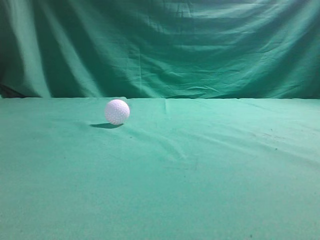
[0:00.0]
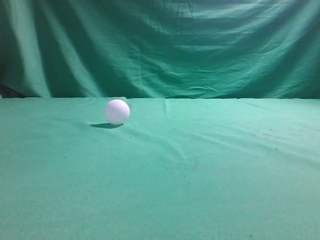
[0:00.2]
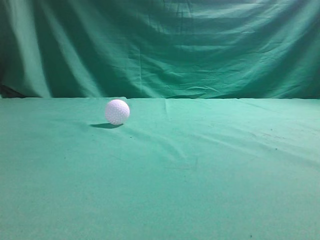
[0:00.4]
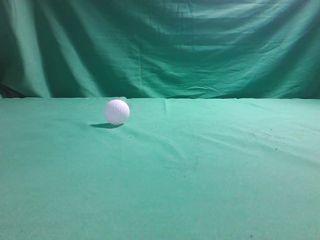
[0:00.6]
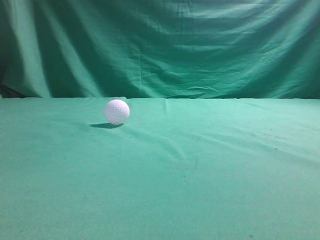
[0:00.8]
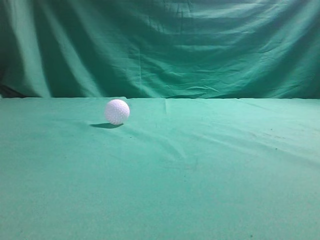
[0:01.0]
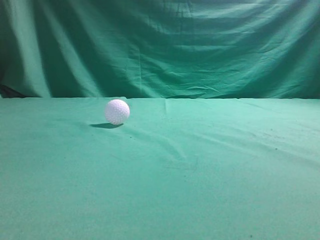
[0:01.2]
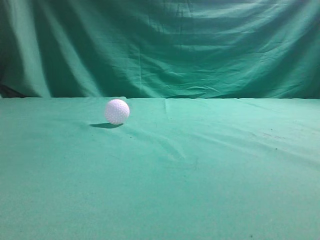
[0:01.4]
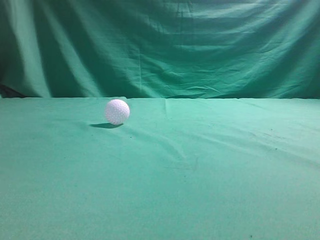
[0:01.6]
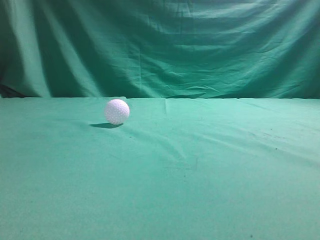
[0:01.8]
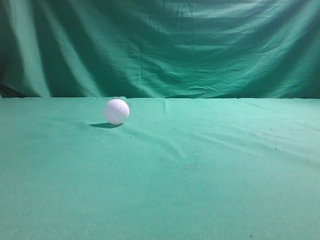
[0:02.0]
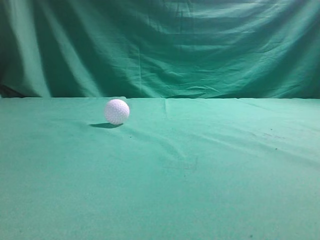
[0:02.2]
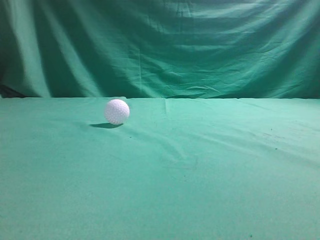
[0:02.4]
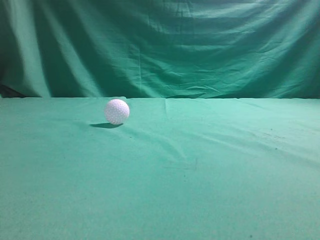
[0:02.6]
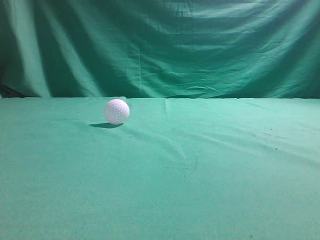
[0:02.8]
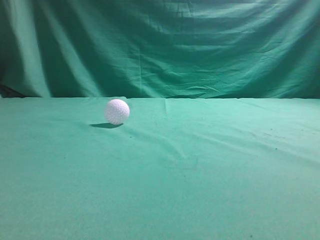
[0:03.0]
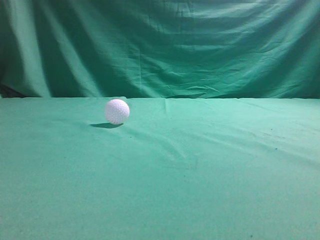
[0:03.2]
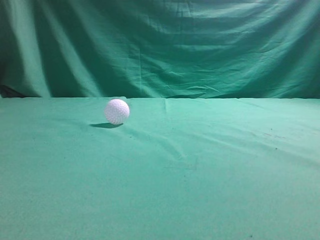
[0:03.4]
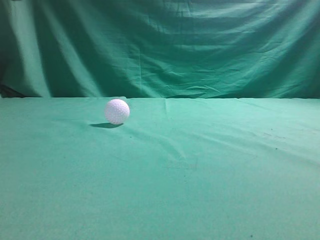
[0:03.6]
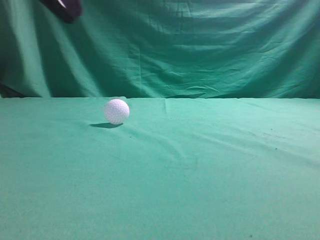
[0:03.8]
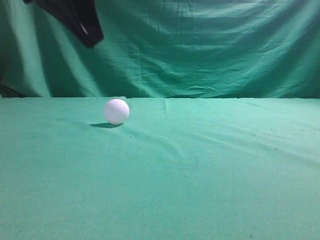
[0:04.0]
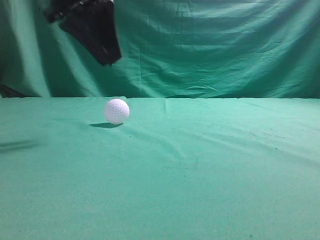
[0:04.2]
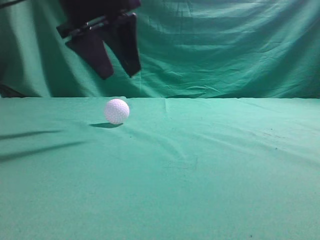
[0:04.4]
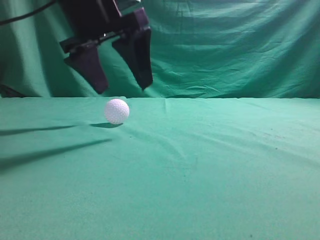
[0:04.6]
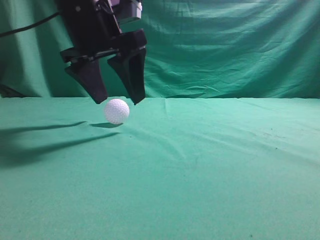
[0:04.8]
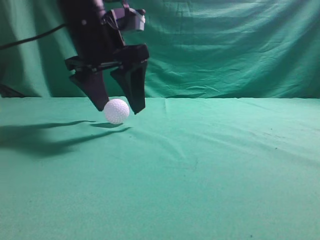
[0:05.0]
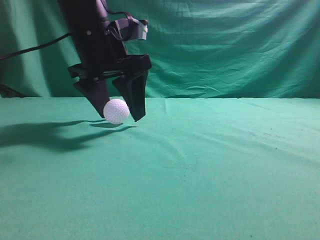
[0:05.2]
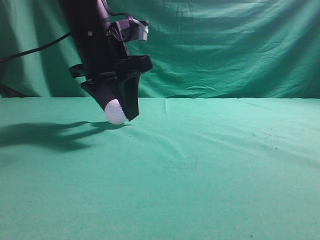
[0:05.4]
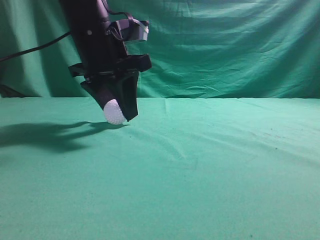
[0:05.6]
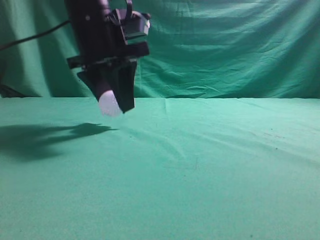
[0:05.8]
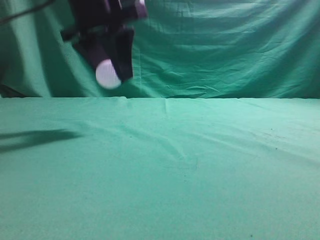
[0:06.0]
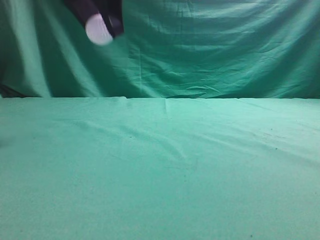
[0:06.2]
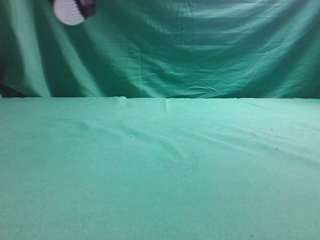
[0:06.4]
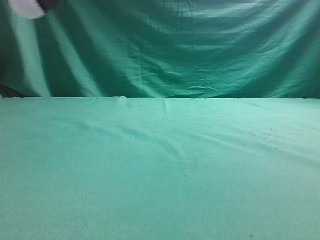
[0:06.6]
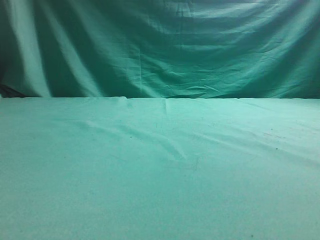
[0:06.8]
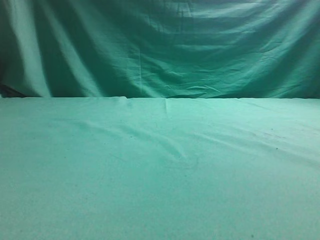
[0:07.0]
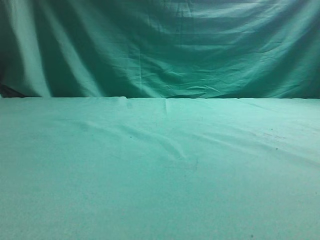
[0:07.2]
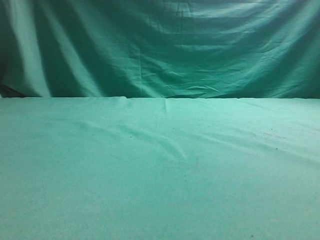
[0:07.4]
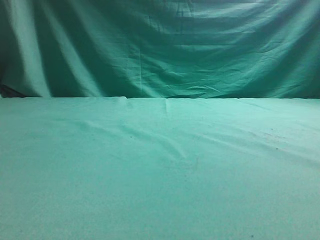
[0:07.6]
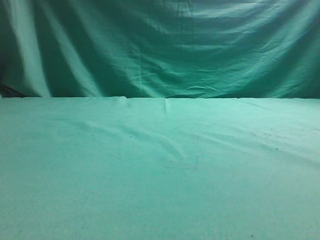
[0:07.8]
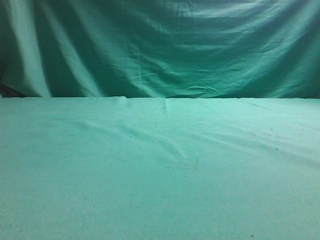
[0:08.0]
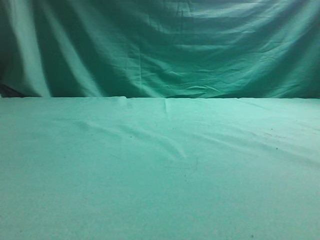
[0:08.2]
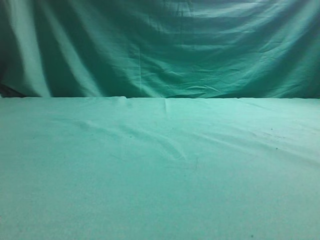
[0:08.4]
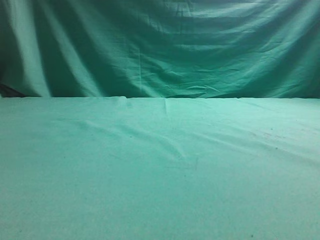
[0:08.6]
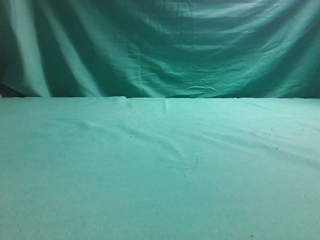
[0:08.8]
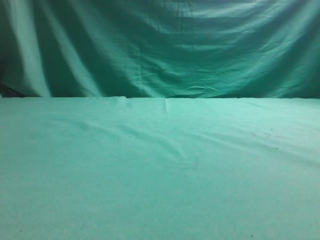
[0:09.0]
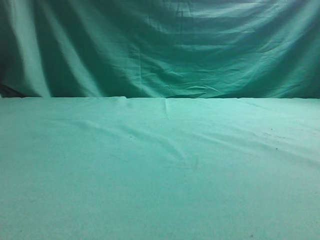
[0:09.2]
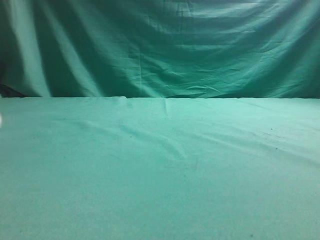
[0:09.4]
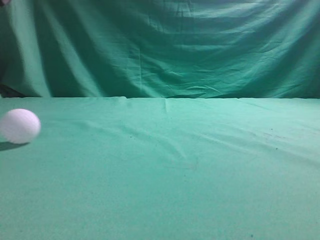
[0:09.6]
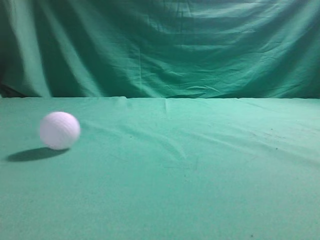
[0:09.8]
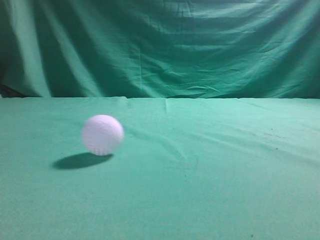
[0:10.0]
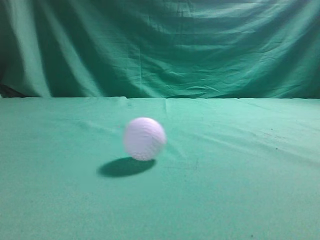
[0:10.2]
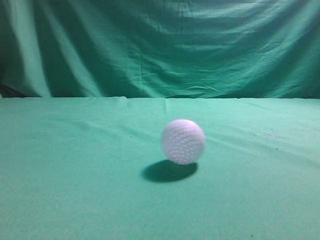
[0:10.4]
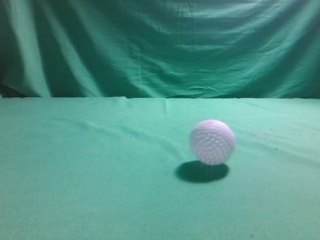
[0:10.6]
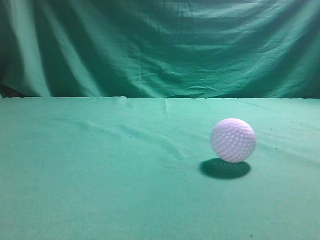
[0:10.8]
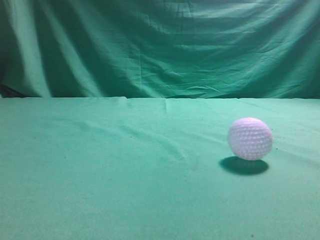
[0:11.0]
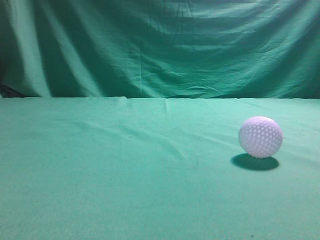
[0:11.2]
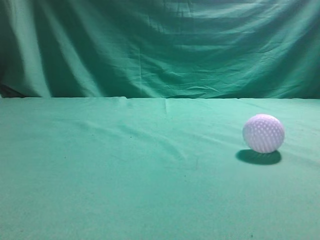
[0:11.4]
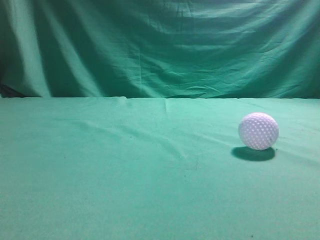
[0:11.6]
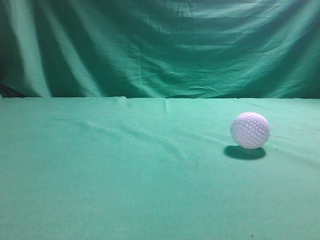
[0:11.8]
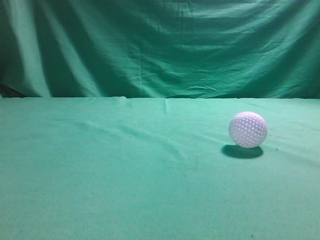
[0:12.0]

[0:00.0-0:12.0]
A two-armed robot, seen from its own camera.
Task of the whole recording: pick up the ball and place it on the plate, then pick up the ball from the plate and put it in the center of the table.
Step, 0:00.0 to 0:05.8: Grab the spherical object with your left arm.
Step, 0:06.0 to 0:09.0: Place the sphere on the white object.
0:03.0 to 0:04.4: The left gripper heads forward and to the right, covering roughly 30 cm, and opens up.
0:06.0 to 0:07.6: The left gripper moves to the left, approximately 25 cm. Meanwhile the right gripper goes about 10 cm upward.
0:09.0 to 0:10.4: The left gripper shifts about 25 cm upward, backward and to the right, and closes up.
0:10.4 to 0:12.0: The right gripper changes place by some 5 cm; the left gripper is displaced backward and downward by roughly 20 cm.

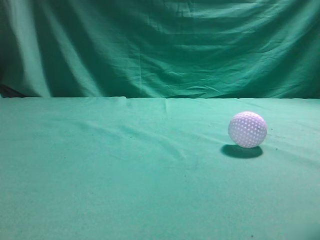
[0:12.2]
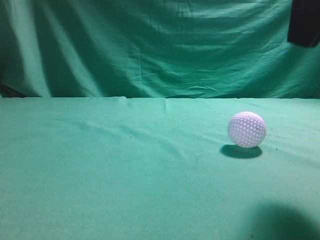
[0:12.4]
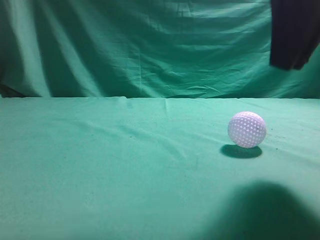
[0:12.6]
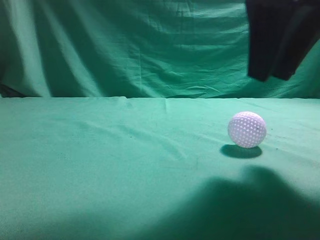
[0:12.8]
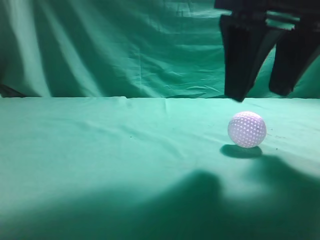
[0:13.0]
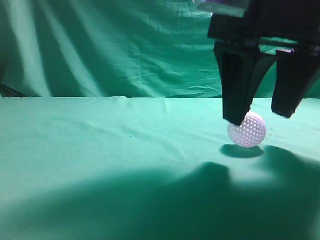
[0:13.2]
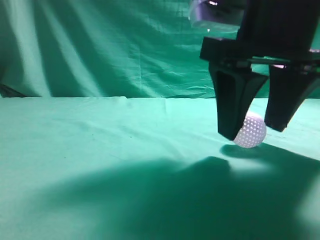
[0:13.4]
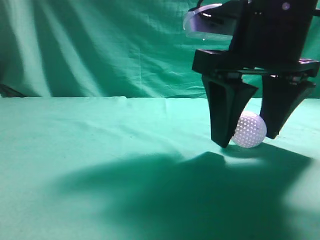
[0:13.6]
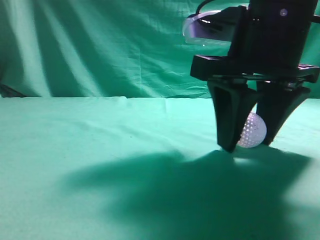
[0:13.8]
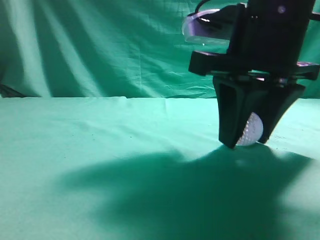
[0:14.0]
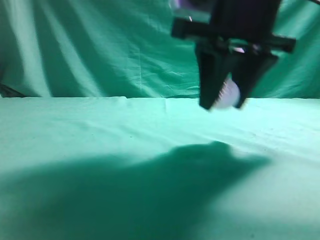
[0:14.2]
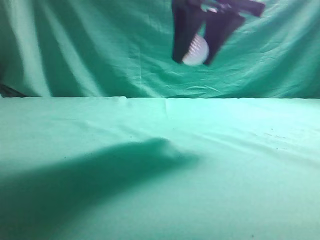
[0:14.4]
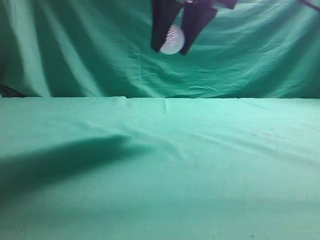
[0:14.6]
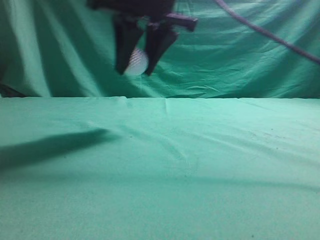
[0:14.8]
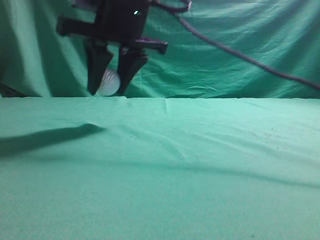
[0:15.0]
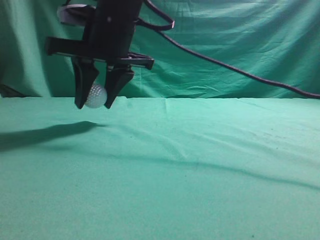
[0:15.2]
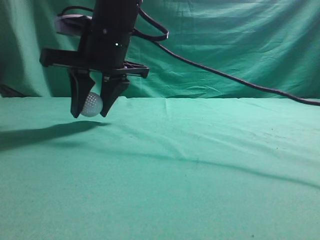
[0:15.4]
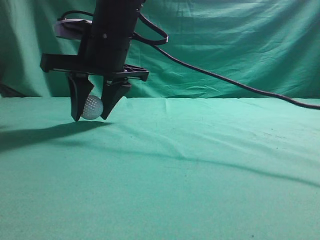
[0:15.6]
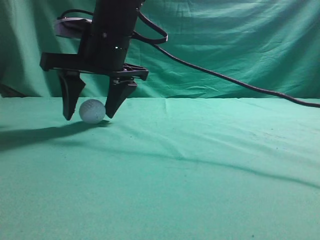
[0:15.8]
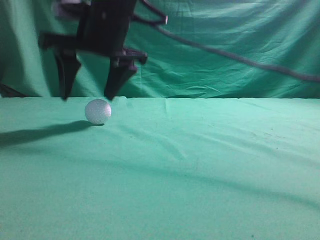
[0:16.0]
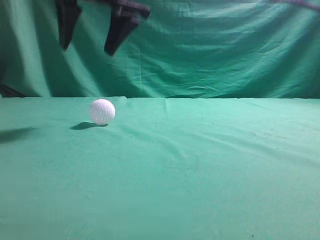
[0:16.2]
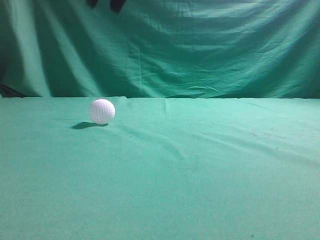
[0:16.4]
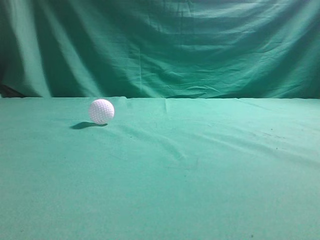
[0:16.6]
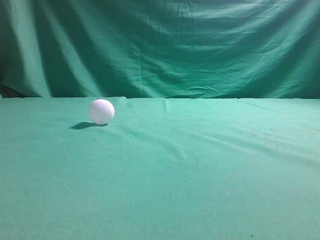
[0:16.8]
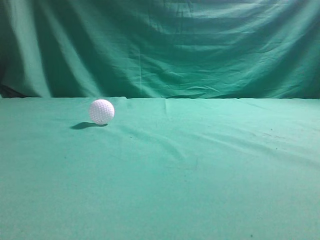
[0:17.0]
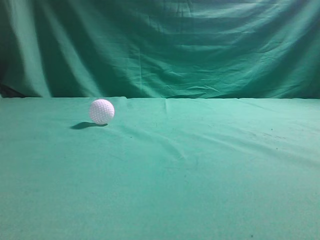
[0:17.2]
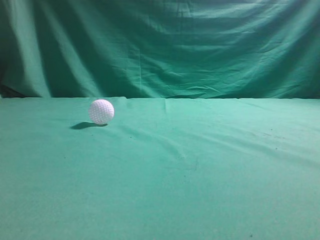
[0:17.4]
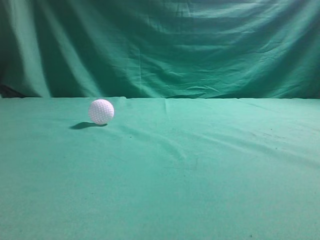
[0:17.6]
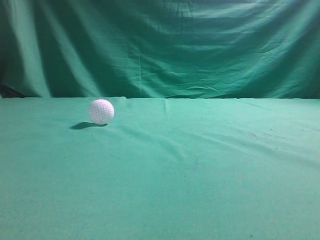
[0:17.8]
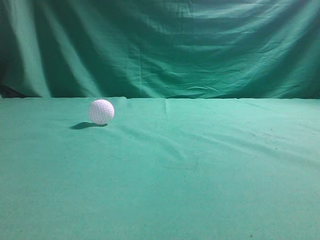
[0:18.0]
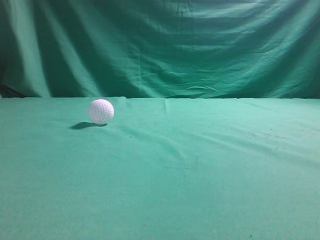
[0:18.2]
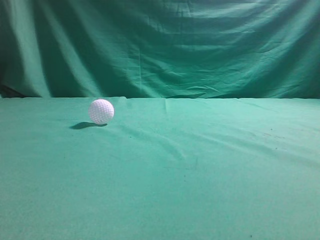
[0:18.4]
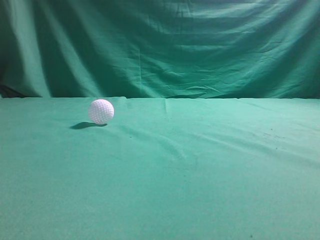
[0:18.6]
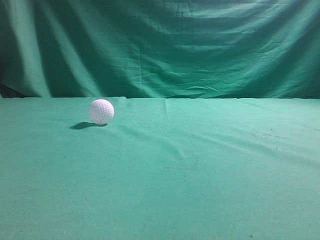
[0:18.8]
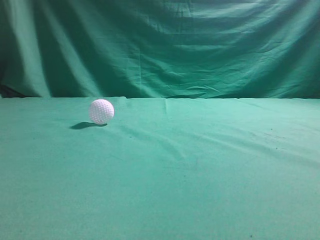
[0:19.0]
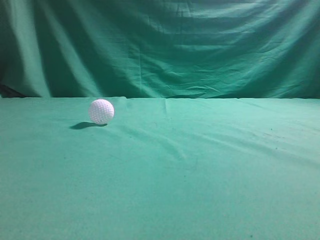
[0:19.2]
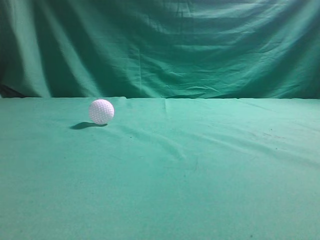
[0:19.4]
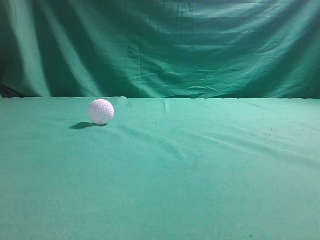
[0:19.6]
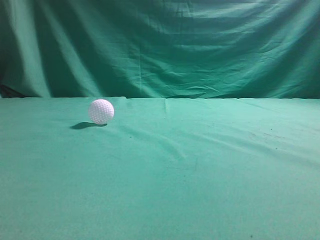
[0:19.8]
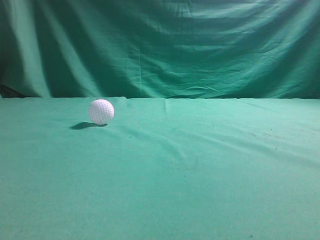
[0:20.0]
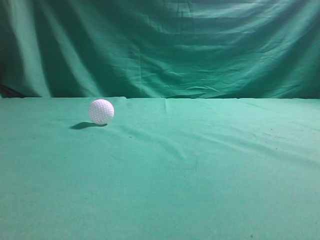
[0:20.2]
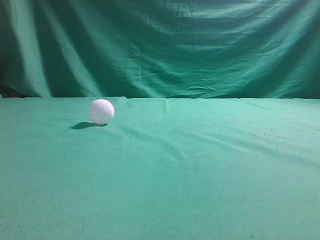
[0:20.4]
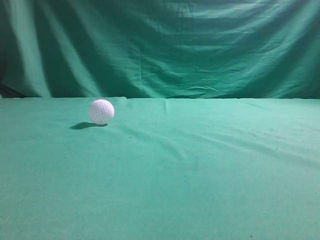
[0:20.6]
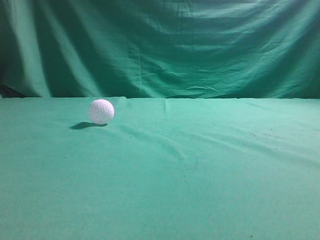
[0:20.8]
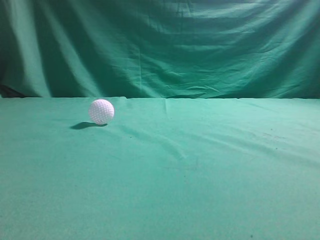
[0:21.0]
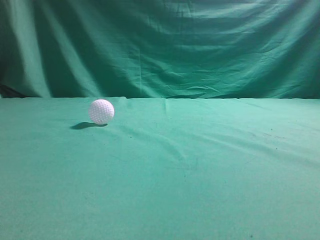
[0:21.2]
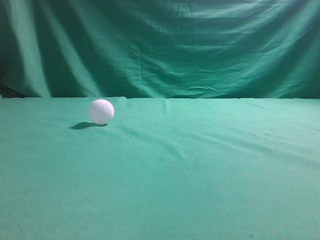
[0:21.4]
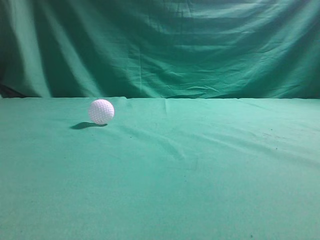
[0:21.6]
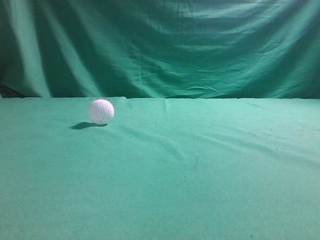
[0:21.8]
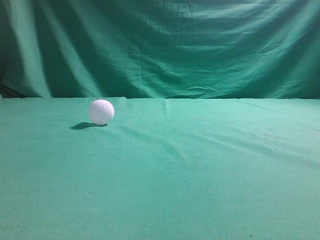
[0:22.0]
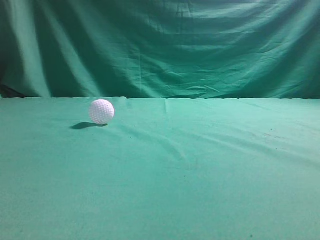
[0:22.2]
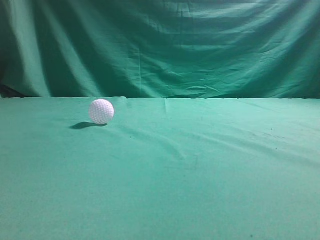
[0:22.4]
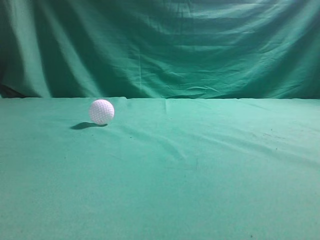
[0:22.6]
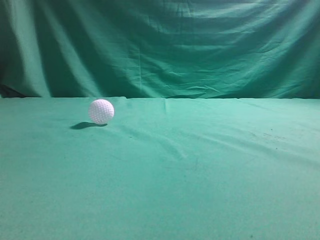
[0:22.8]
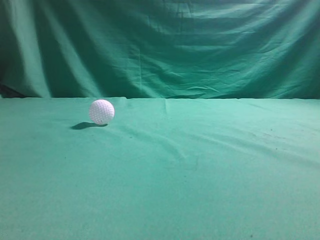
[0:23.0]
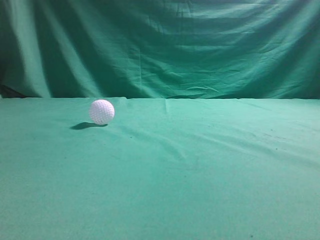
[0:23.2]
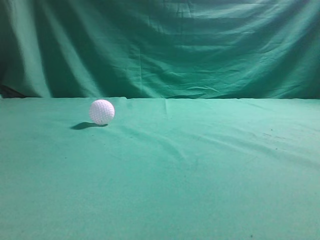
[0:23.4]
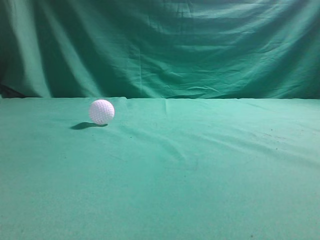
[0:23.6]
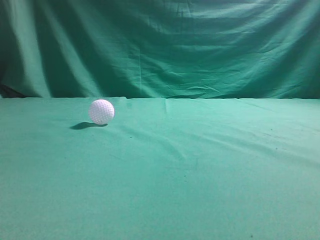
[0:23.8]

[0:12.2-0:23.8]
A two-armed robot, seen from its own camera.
Task of the whole recording: pick up the ball and place it on the plate, then pick up the ball from the plate and put it in the center of the table.
Step, 0:14.2 to 0:16.0: Put the picked-up object on the table.
0:12.2 to 0:13.6: The right gripper is displaced downward, forward and to the left by roughly 15 cm, and opens up.
0:13.6 to 0:15.0: The right gripper moves to the left and forward, roughly 20 cm, and closes its fingers.
0:15.0 to 0:16.6: The right gripper moves upward, some 15 cm, and closes up.
